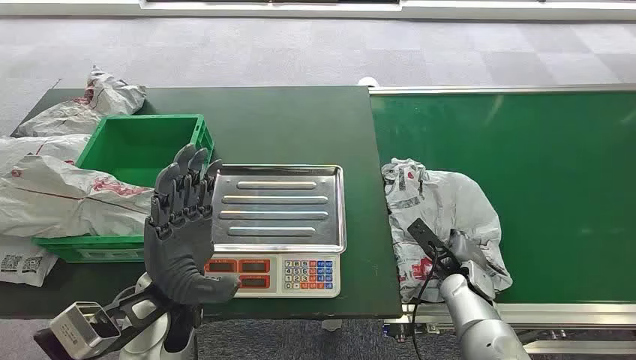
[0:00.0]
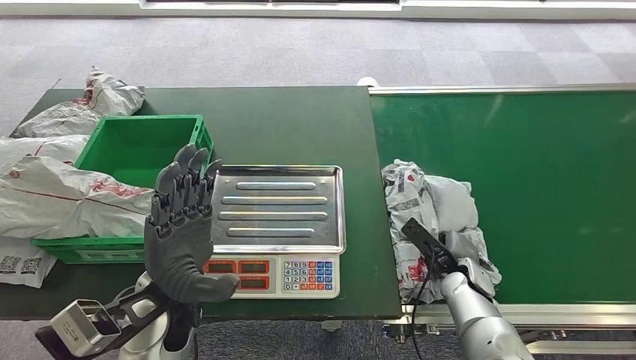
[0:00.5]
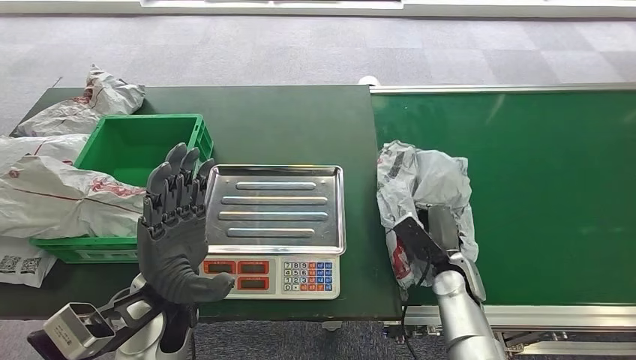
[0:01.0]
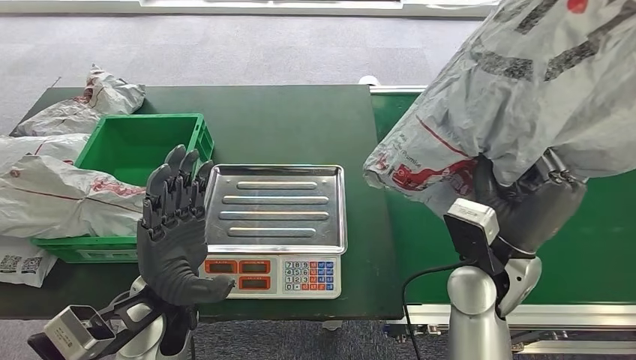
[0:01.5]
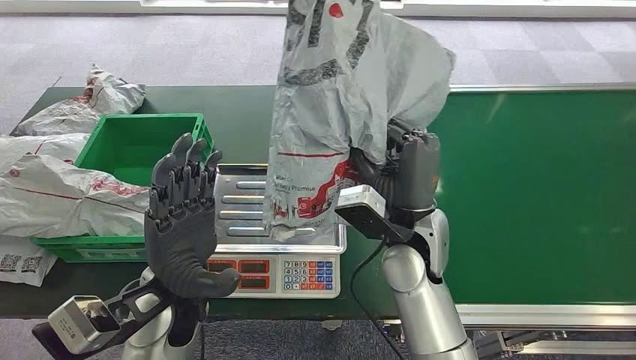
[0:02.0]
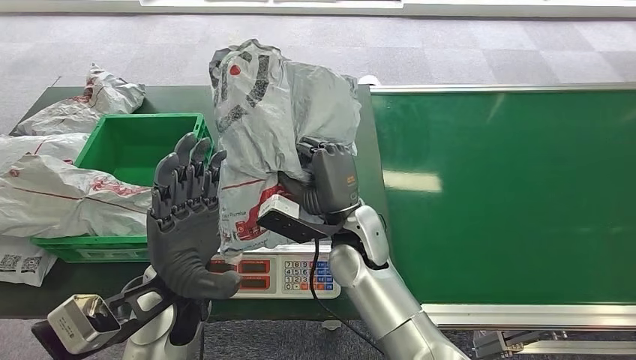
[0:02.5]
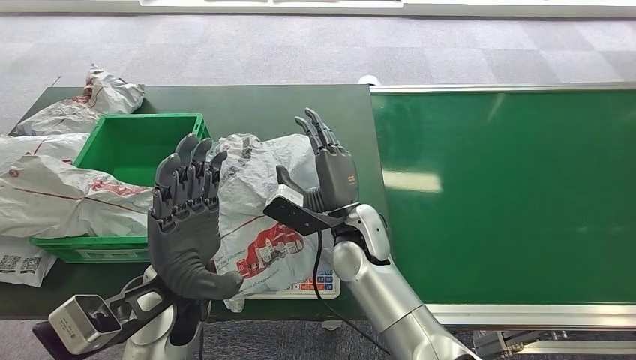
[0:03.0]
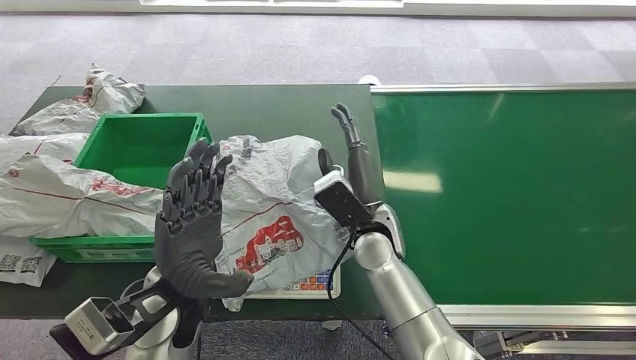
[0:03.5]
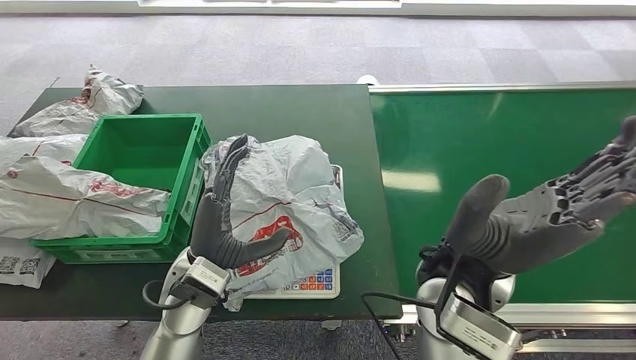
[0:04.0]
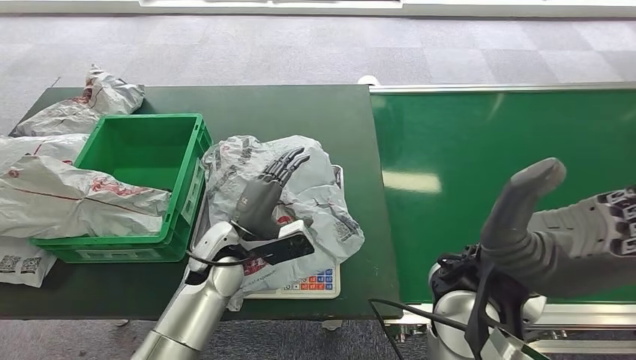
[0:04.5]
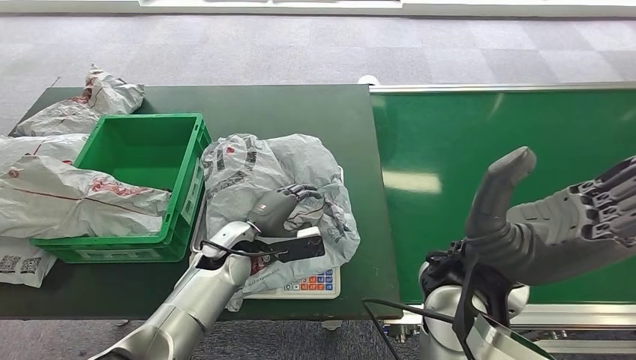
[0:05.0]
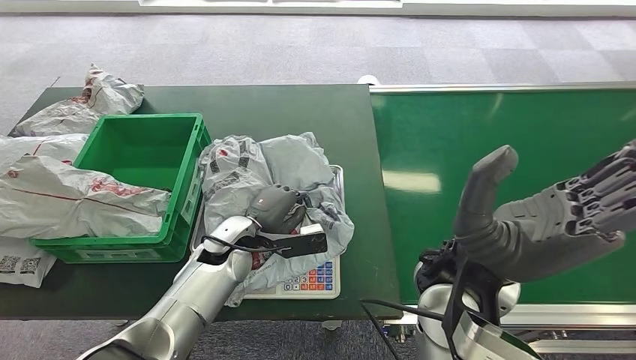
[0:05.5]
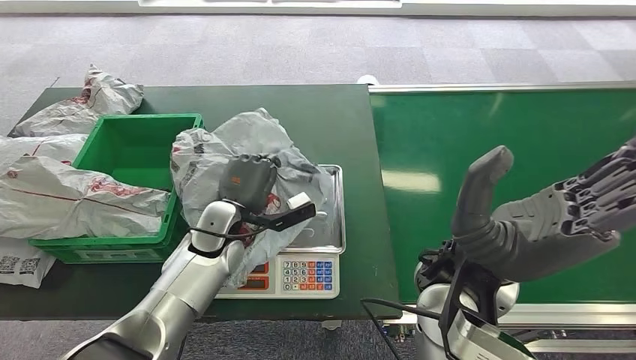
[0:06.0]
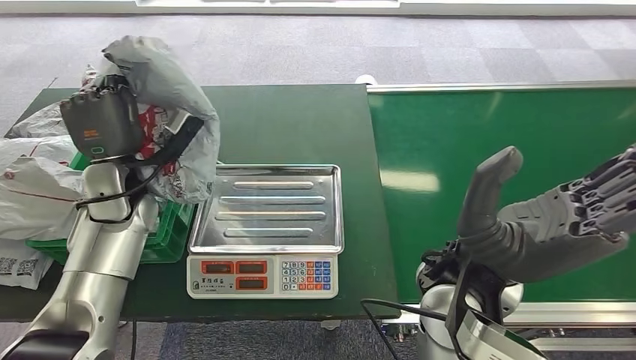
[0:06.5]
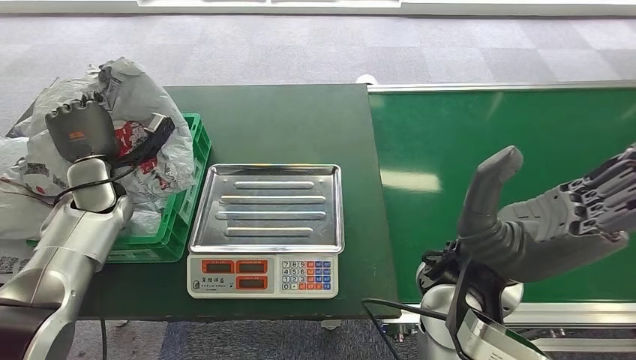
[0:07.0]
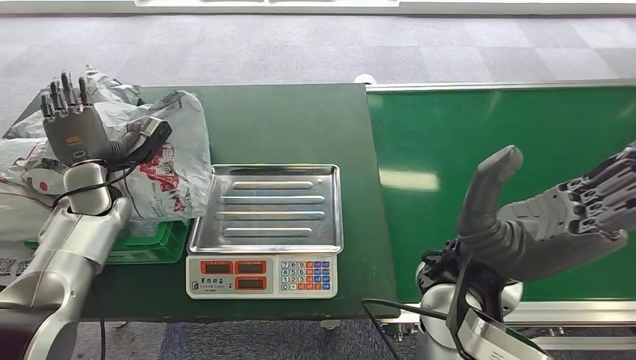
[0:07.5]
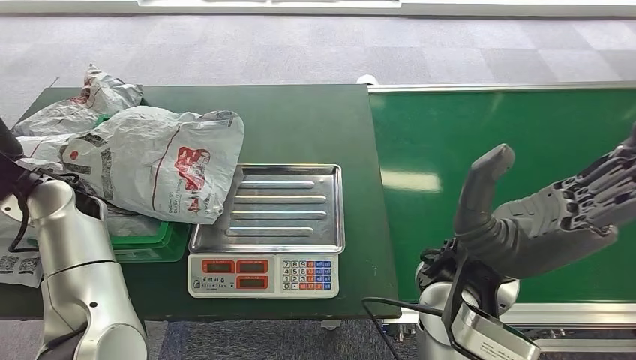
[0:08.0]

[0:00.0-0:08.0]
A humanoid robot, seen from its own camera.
Task of the whole recording: Weigh the package on the weighing device and place it in the left basket.
Step, 0:00.0 to 0:01.0: Pick up the package from the conveyor belt.
Step, 0:01.5 to 0:03.0: Place the package onto the inbound machine.
Step, 0:04.0 to 0:06.0: Pick up the package from the inbound machine.
Step, 0:06.5 to 0:08.0: Place the package into the parcel locker.
0:04.0 to 0:06.0: The left hand is displaced forward by some 10 cm.
